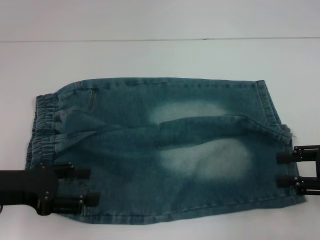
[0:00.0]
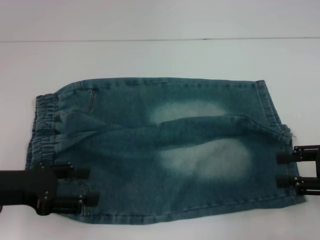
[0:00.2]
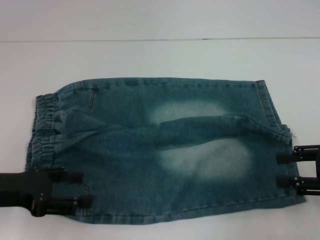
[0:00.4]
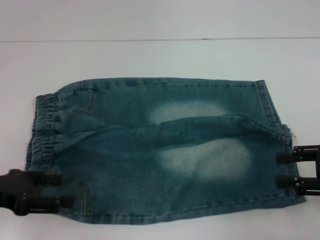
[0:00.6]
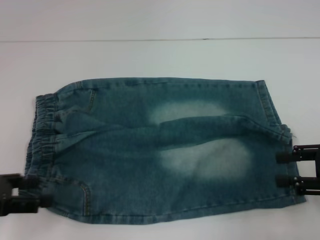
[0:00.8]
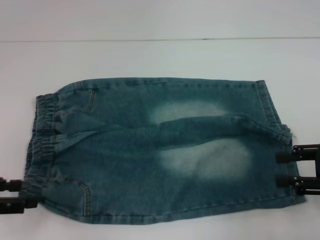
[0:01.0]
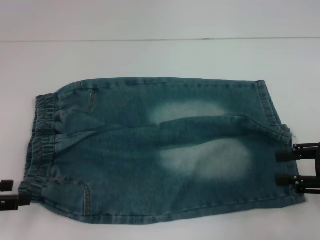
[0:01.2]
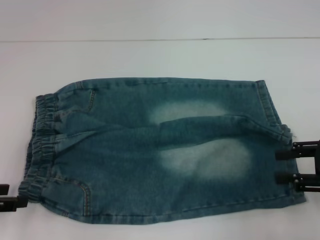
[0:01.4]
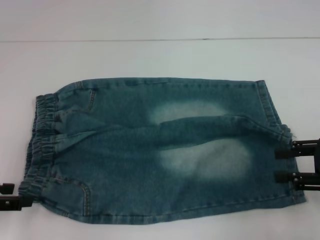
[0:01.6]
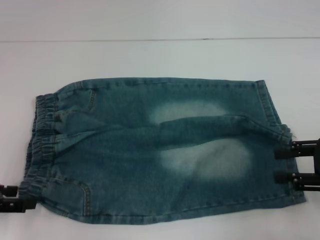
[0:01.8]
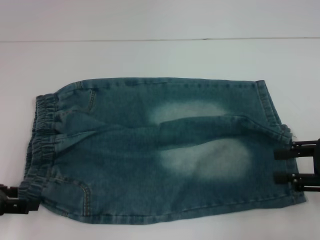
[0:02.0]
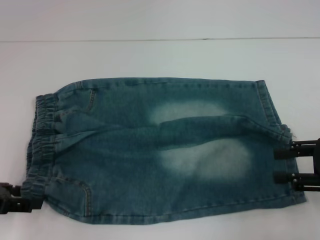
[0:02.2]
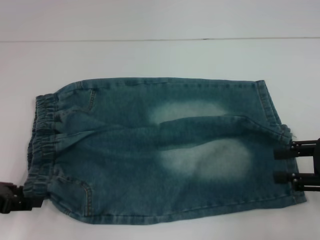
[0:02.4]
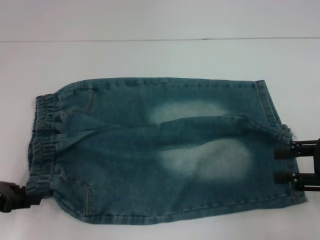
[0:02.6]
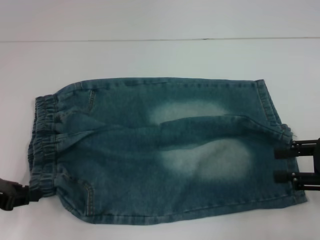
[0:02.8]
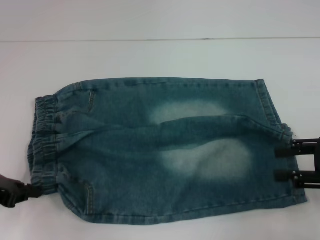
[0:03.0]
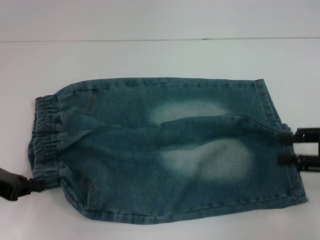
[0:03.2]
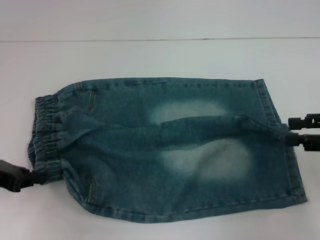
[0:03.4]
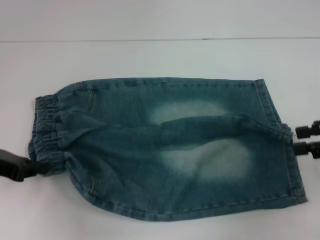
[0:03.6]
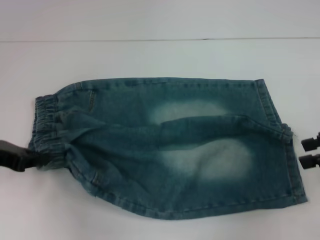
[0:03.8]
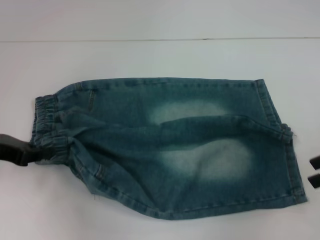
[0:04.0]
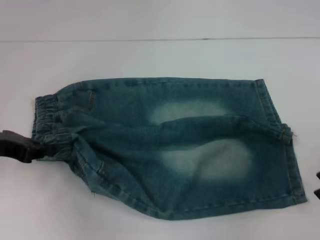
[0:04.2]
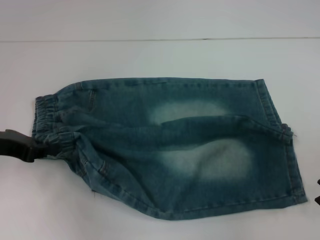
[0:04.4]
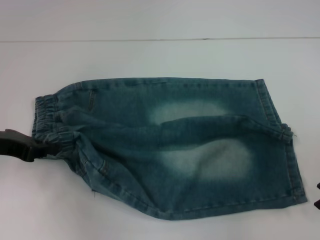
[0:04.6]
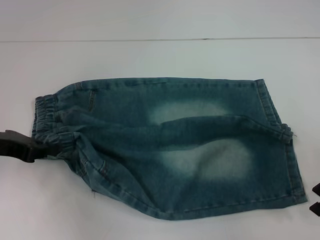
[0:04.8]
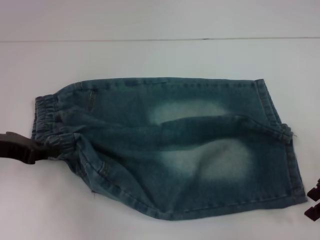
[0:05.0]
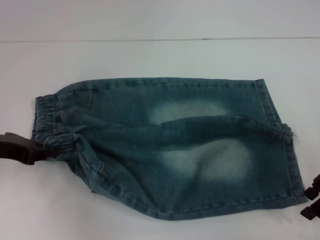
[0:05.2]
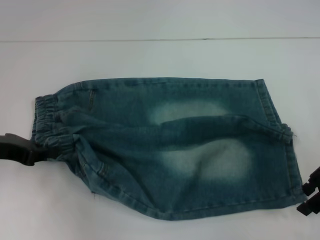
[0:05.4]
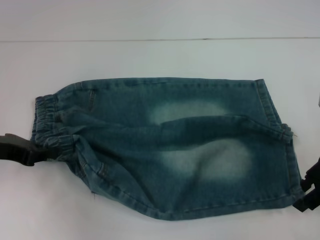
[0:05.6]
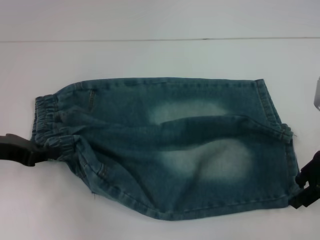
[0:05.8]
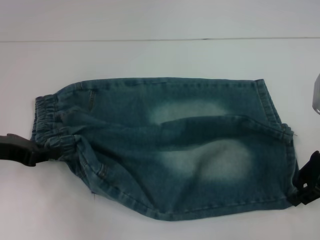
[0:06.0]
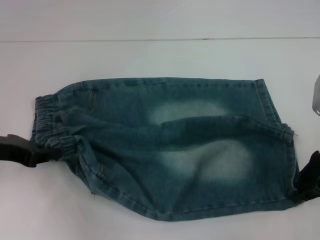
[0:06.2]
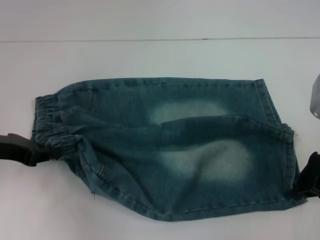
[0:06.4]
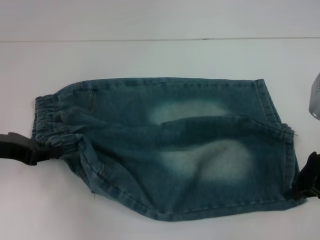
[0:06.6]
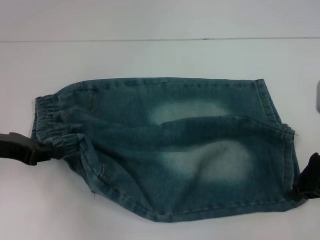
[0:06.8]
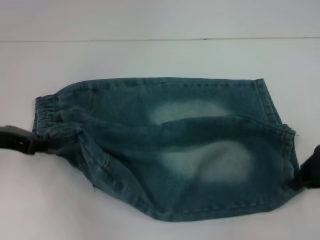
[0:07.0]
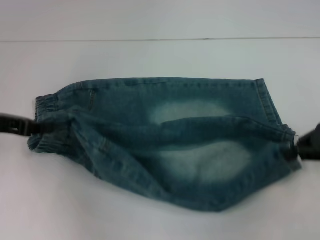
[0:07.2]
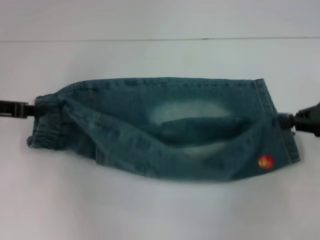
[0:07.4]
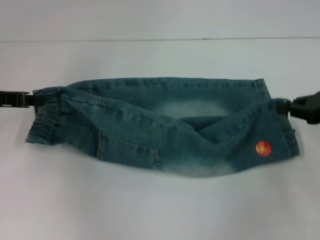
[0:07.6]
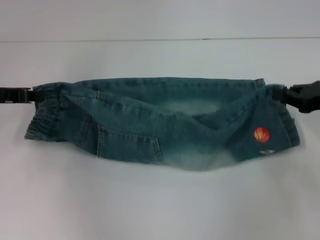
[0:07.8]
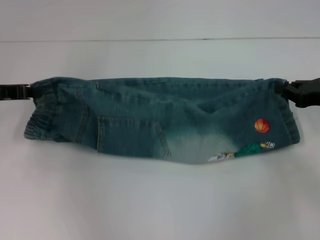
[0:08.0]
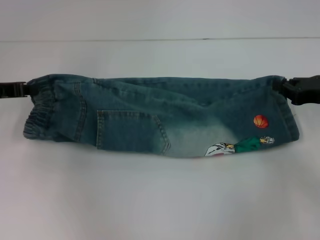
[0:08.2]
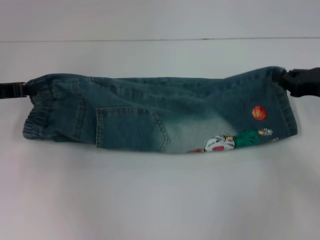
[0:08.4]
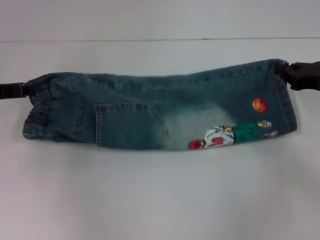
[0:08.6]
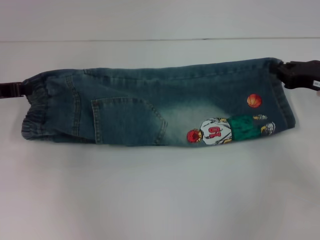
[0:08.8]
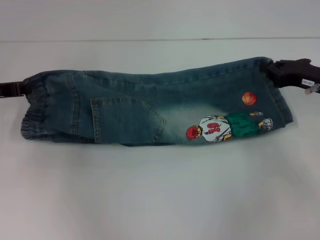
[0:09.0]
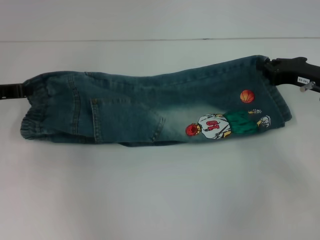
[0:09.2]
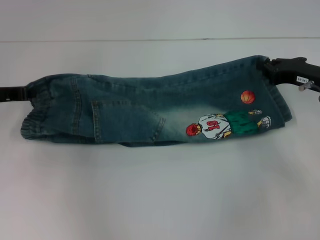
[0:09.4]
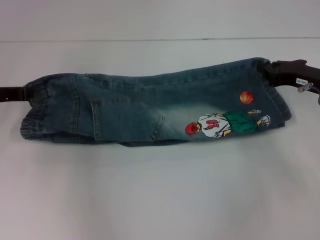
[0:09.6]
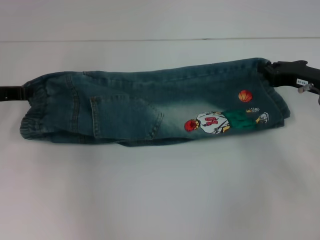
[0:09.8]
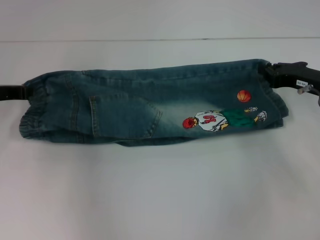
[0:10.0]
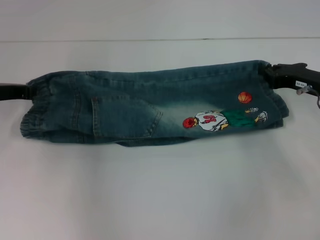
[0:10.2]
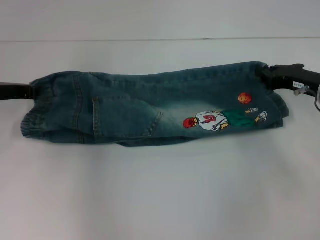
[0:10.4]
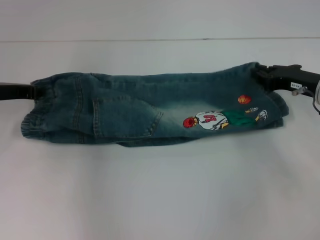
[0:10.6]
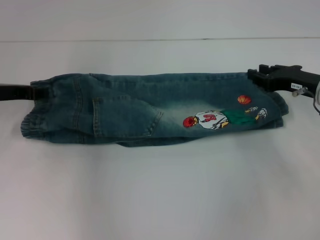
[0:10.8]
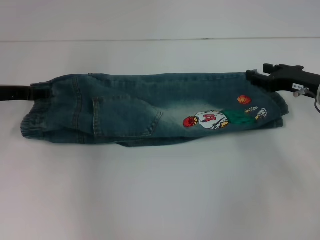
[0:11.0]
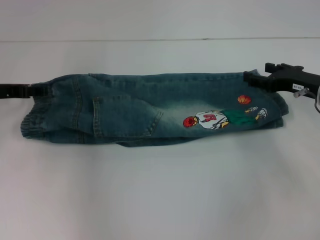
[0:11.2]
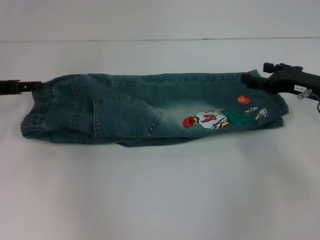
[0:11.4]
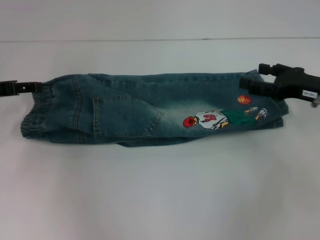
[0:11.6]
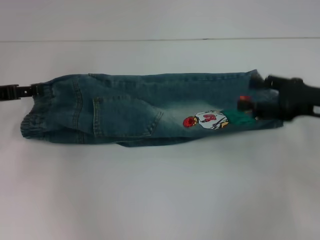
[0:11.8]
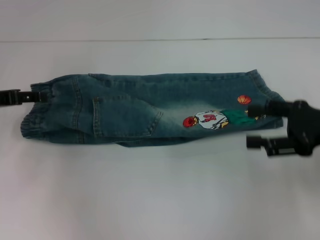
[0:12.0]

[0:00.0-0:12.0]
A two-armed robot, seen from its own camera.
Step, 0.0 to 3.4 s: Hold the lower left waistband with your left hand.
Step, 3.6 to 6.6 s: Grab the lower right pant leg with your right hand.
Step, 6.8 to 11.4 s: Fold upward with your right hand.
0.0 to 1.6 s: The left gripper shifts roughly 5 cm to the left.
1.6 to 3.0 s: The left gripper closes its fingers.
3.0 to 4.4 s: The left gripper shifts by about 5 cm, while the right gripper ends up about 5 cm from where it was.
4.4 to 6.0 s: The right gripper moves to the left, approximately 5 cm.
6.0 to 7.6 s: The right gripper shifts roughly 5 cm to the right, and closes up. The left gripper ends up about 5 cm from where it was.
7.6 to 9.0 s: The right gripper moves some 5 cm.
9.0 to 10.4 s: There are only small adjustments of the grippers.
10.4 to 12.0 s: The left gripper opens its fingers. Meanwhile the right gripper shifts approximately 10 cm backward, and opens up.

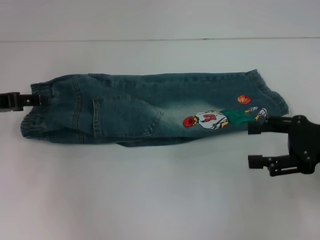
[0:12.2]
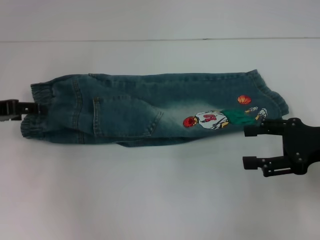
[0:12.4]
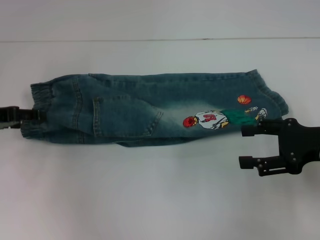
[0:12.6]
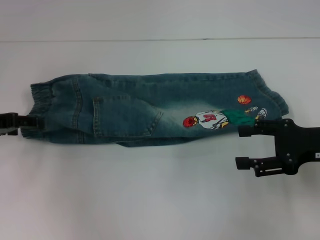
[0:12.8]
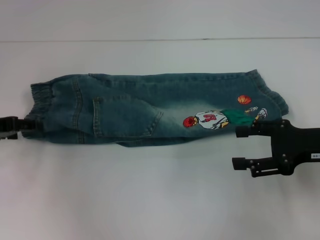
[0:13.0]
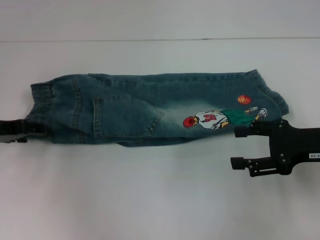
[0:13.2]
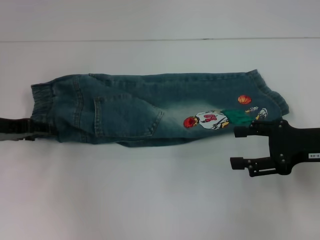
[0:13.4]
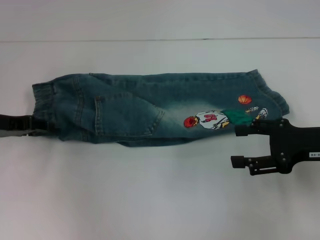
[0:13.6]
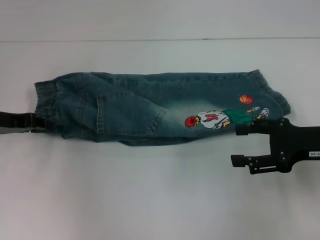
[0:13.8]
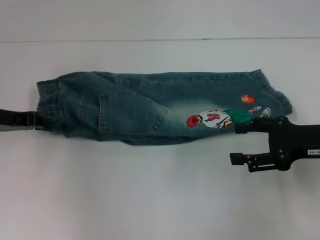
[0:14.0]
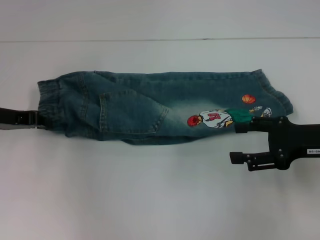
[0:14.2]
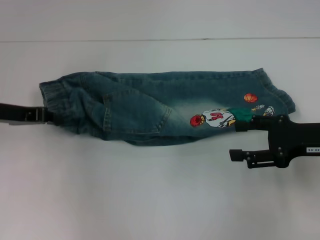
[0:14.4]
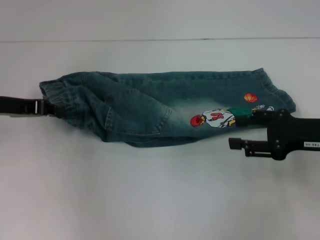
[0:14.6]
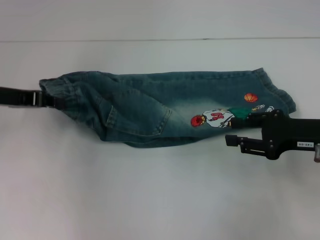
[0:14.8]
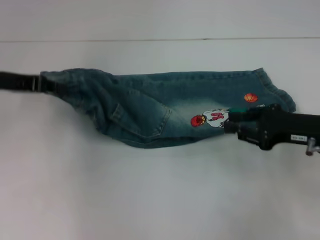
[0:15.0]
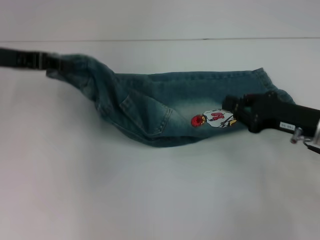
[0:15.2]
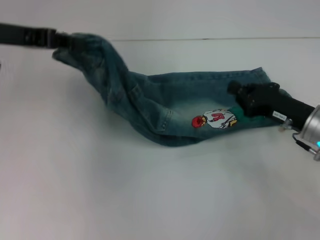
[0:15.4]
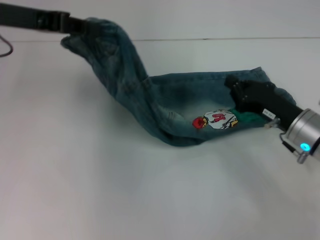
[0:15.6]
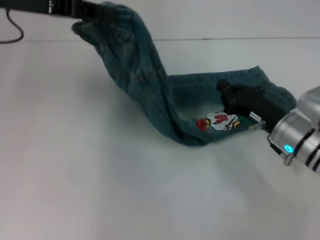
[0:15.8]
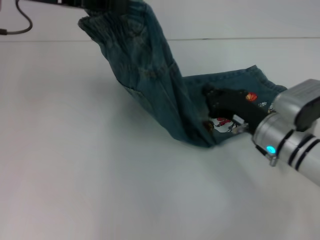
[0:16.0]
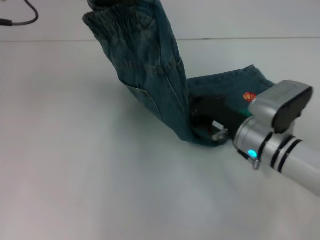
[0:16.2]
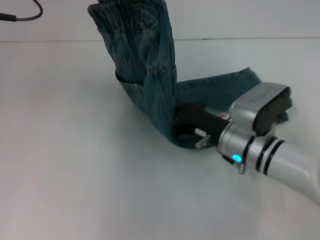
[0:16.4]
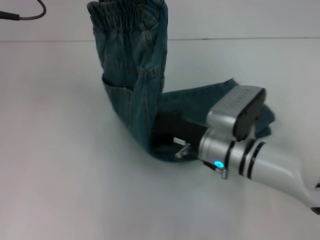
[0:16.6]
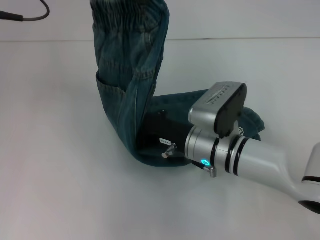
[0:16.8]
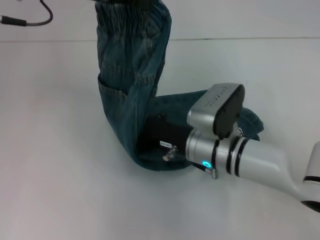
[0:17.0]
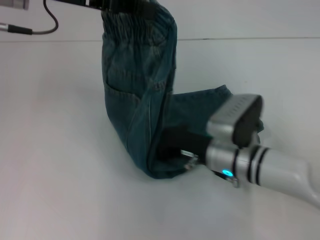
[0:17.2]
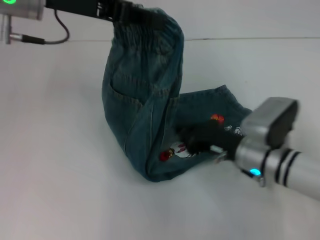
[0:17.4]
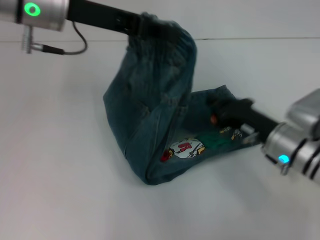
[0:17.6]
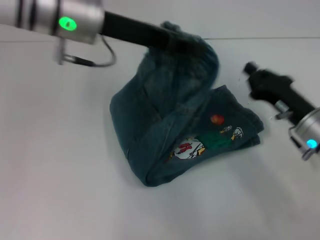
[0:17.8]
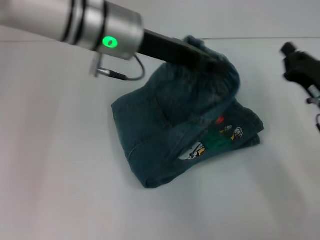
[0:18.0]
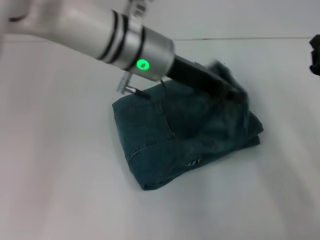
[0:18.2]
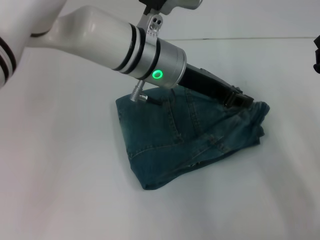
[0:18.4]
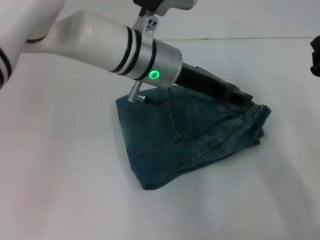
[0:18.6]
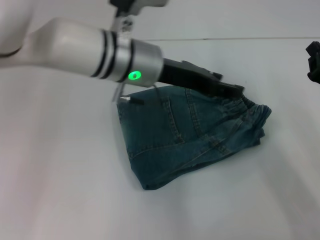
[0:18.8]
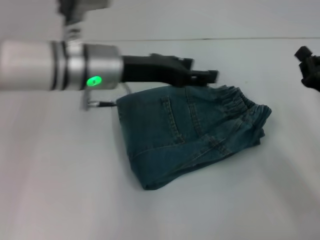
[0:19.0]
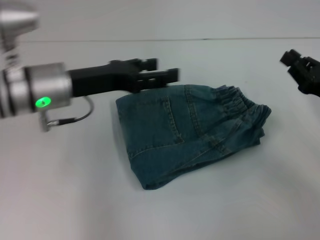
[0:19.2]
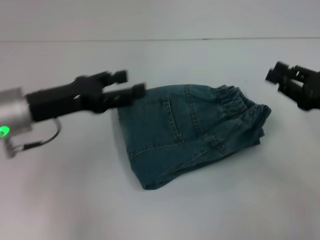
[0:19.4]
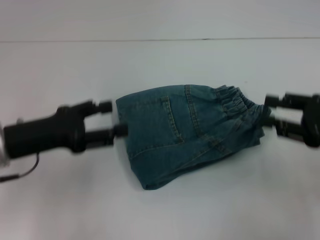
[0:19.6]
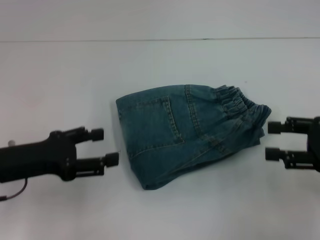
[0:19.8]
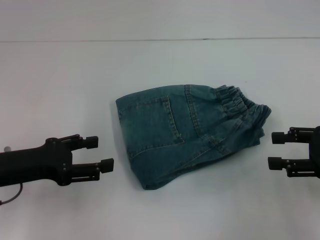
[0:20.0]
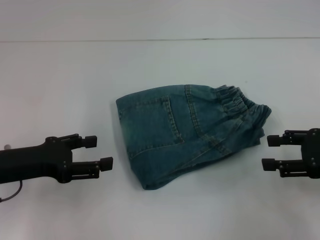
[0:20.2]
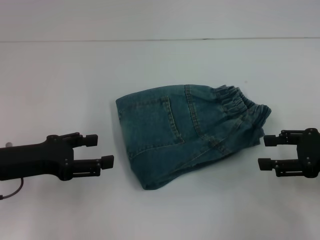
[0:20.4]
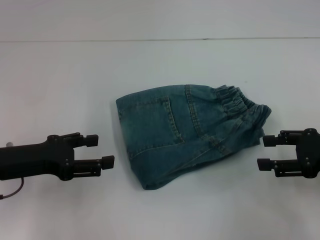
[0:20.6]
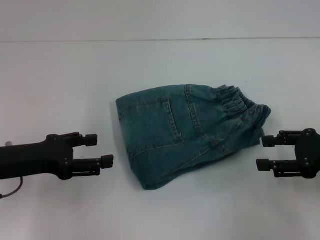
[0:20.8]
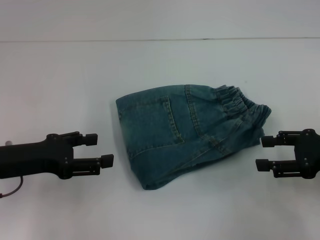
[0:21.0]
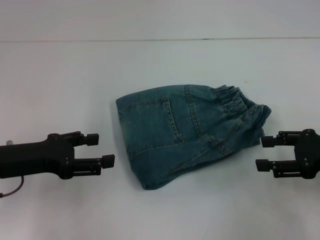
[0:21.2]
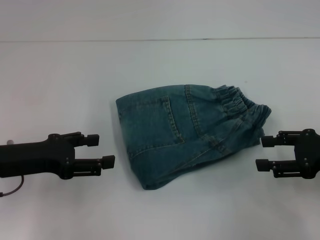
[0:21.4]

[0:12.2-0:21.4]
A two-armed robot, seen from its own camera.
Step, 12.2 to 14.4 s: Hold the waistband with your left hand.
Step, 14.6 to 17.2 s: Press the middle of the pants with your right hand.
Step, 17.4 to 18.6 s: Fold to the right with your left hand.
12.2 to 13.8 s: The left gripper closes up.
13.8 to 15.2 s: The right gripper closes. The left gripper heads upward, covering about 10 cm, and closes up.
15.2 to 16.8 s: The right gripper travels to the left by about 20 cm, and closes up; the left gripper travels to the right and upward by approximately 10 cm.
16.8 to 18.4 s: The left gripper shifts some 20 cm to the right and downward, while the right gripper travels to the right by about 20 cm.
18.4 to 19.8 s: The right gripper goes roughly 5 cm upward, and opens. The left gripper is displaced to the left and backward by roughly 25 cm, and opens.
19.8 to 21.4 s: There are only small adjustments of the grippers.

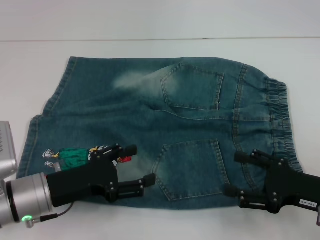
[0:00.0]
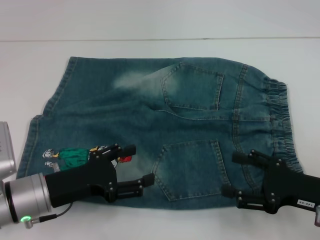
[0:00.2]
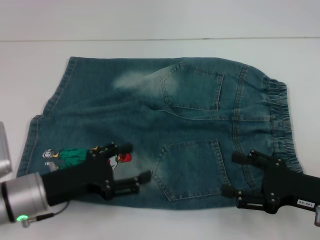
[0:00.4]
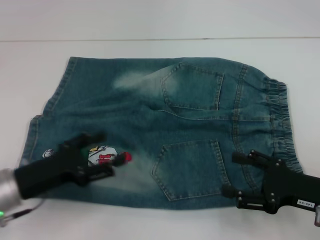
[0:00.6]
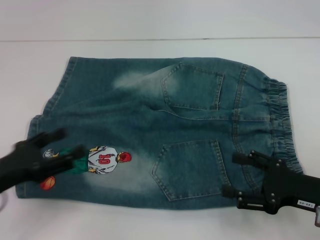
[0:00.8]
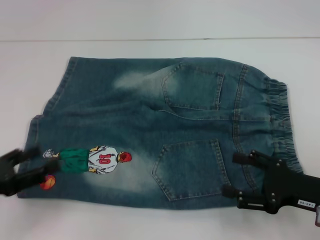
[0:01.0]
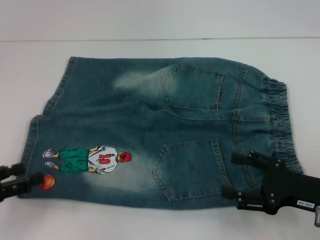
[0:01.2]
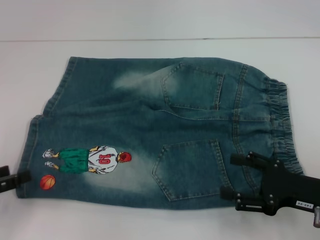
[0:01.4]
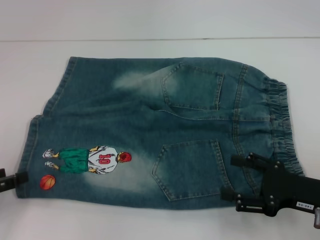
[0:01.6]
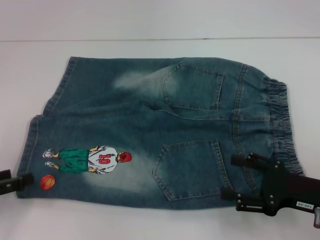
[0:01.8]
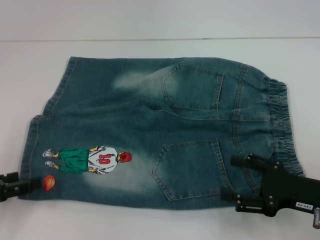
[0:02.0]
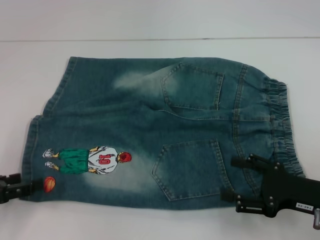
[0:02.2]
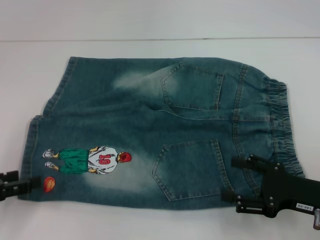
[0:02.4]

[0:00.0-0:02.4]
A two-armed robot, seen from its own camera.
0.0 to 1.2 s: The left gripper is displaced to the left by about 15 cm.
1.2 to 2.4 s: The grippers stay close to where they were, moving slightly.
